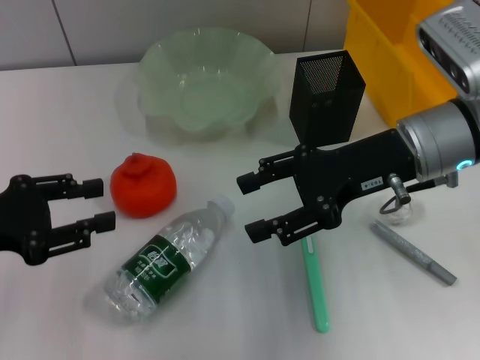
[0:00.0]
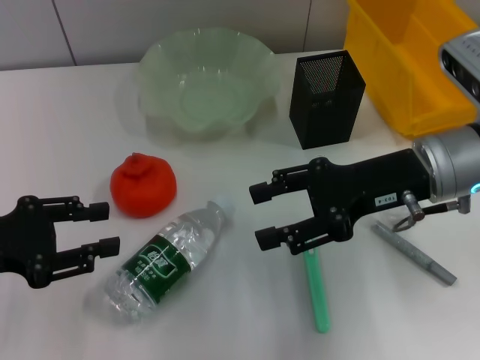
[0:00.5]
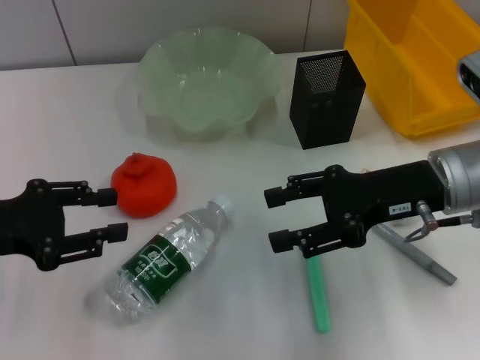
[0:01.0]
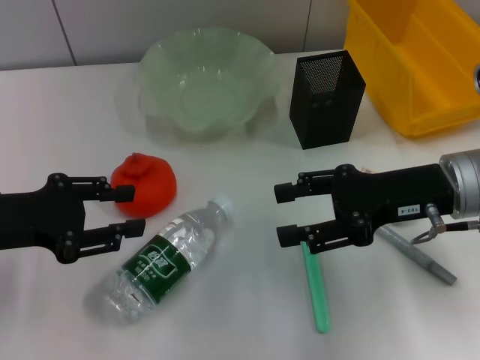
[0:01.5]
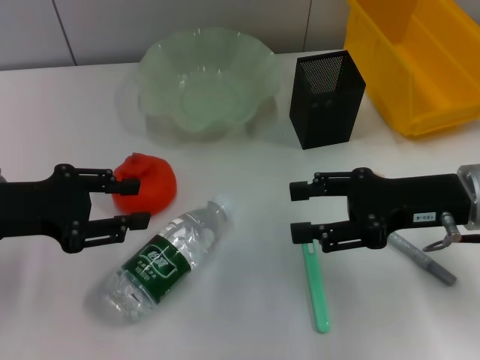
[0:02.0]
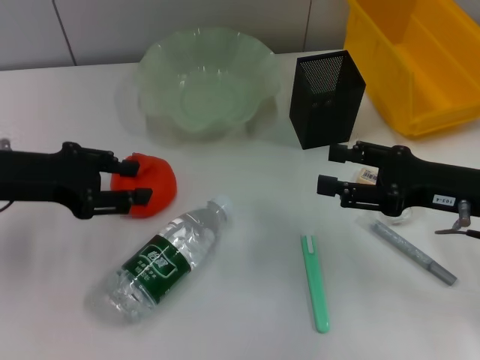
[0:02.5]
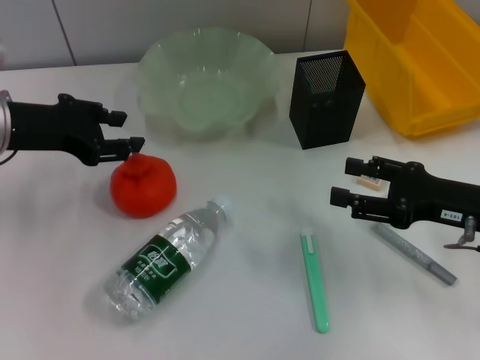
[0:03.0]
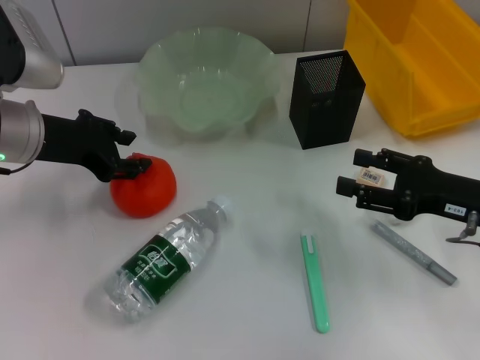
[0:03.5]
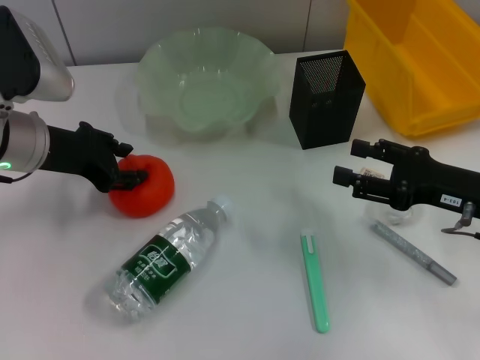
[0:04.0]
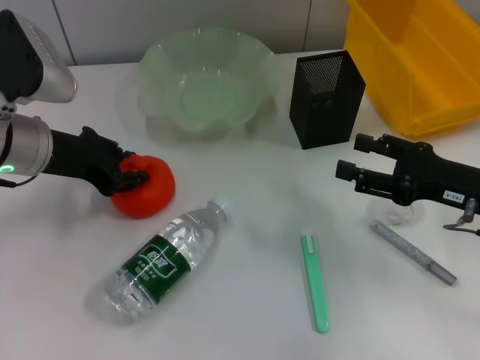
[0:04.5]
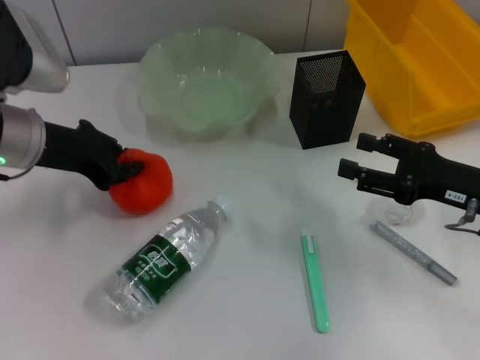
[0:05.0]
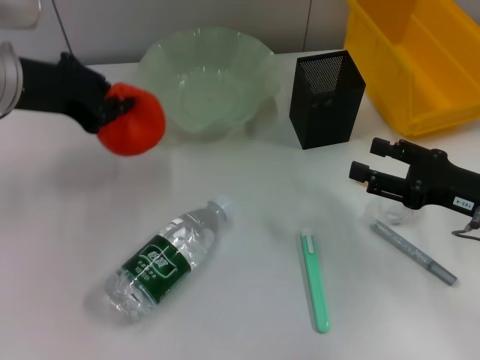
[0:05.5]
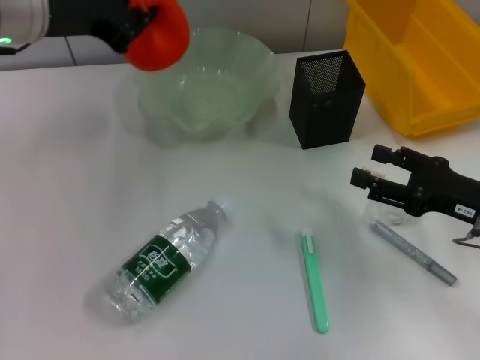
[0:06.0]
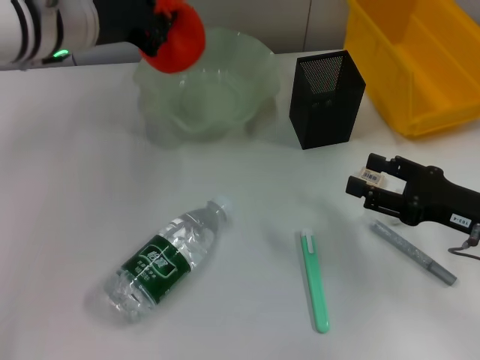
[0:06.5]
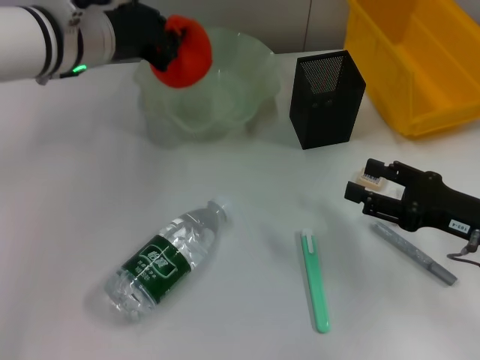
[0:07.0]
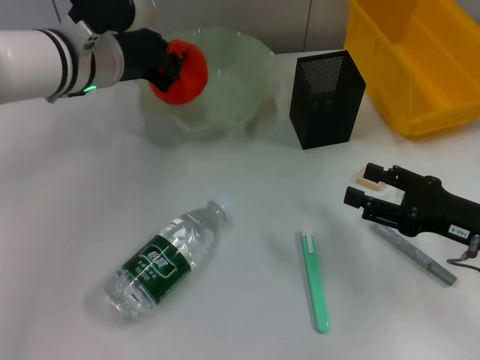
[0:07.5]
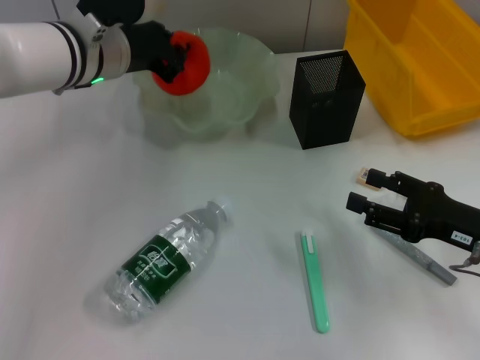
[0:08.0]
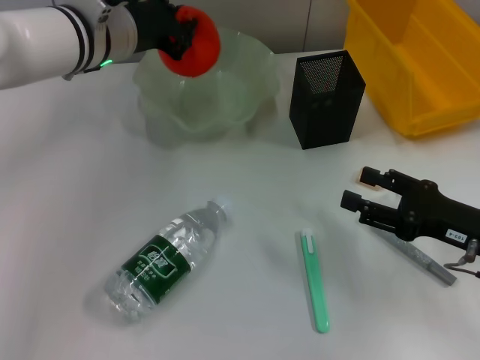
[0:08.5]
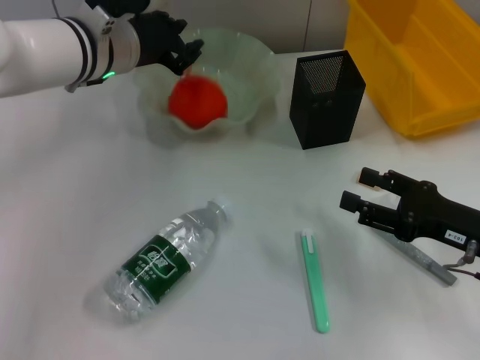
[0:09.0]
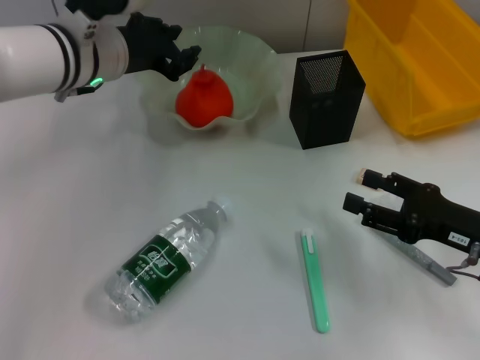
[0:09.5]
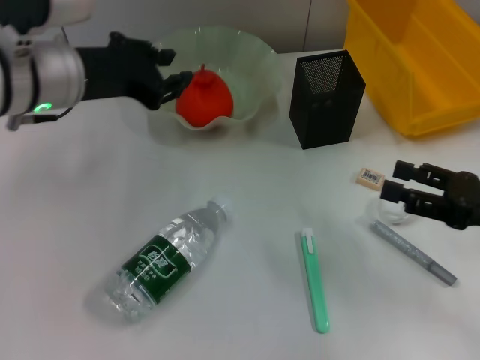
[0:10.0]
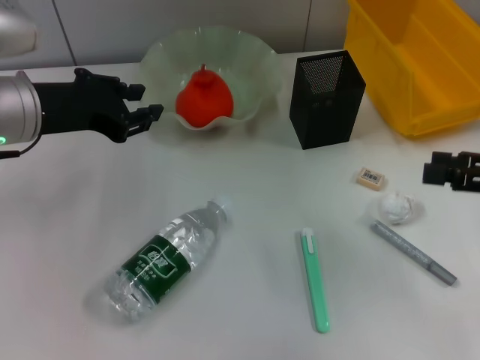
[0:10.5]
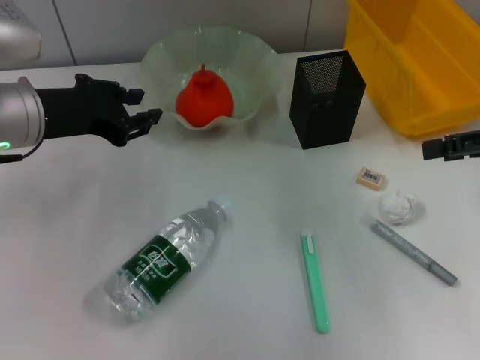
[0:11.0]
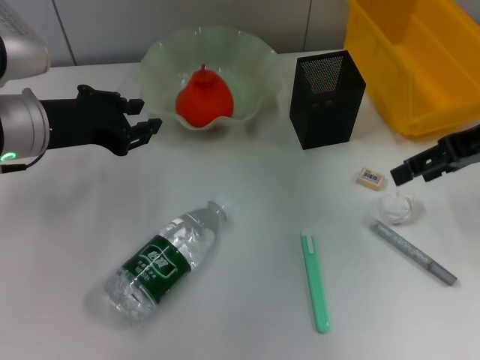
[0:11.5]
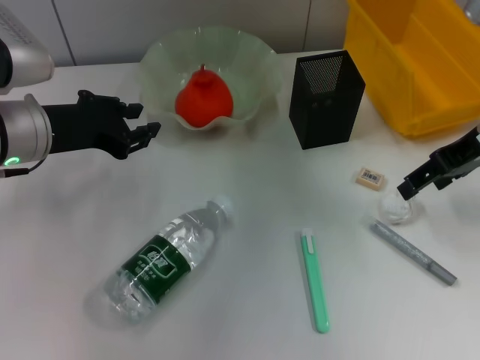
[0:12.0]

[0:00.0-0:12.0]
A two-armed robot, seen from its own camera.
Step, 0:00.0 to 0:04.5: Grab the orange with the left hand.
Step, 0:05.0 to 0:09.0: Place the orange into the fruit bowl with the left hand.
0:00.0 to 0:02.0: The right gripper shifts roughly 5 cm to the right.
0:02.0 to 0:04.0: The right gripper changes place by approximately 5 cm; the left gripper shifts roughly 10 cm forward and to the right.
0:04.0 to 0:06.0: The left gripper heads upward, covering roughly 10 cm, and closes.
0:06.0 to 0:08.0: The left gripper heads downward and to the right, covering some 10 cm.
0:08.0 to 0:10.0: The left gripper goes about 5 cm backward, and opens.
0:10.0 to 0:12.0: The left gripper ends up about 5 cm from where it was. The right gripper moves forward and upward, some 15 cm.

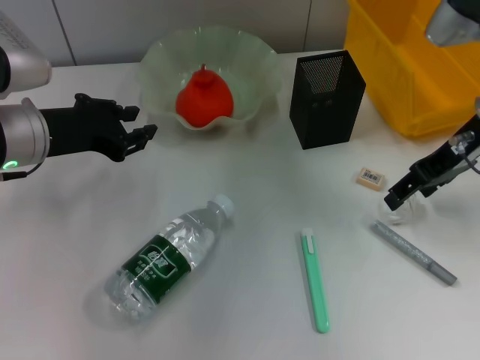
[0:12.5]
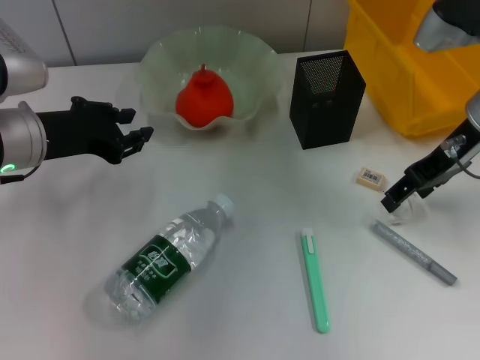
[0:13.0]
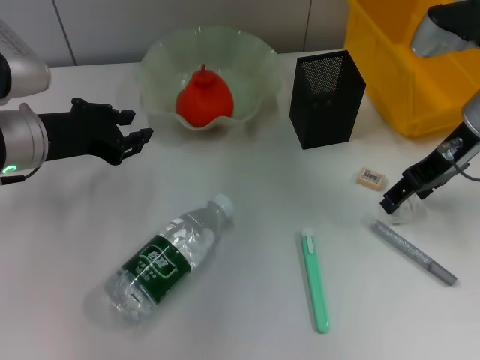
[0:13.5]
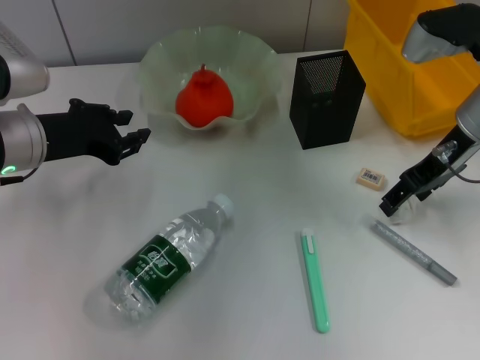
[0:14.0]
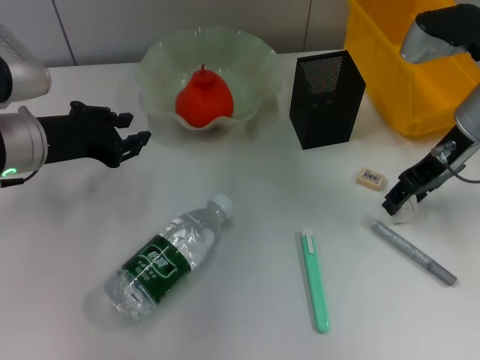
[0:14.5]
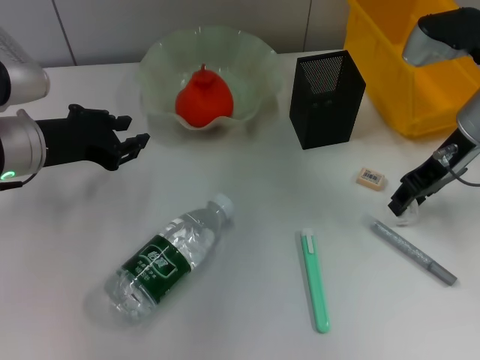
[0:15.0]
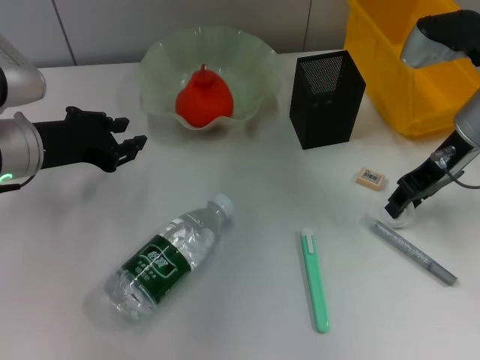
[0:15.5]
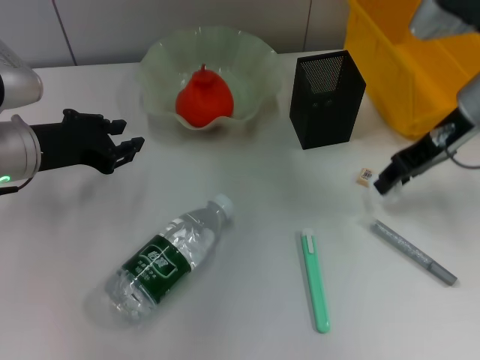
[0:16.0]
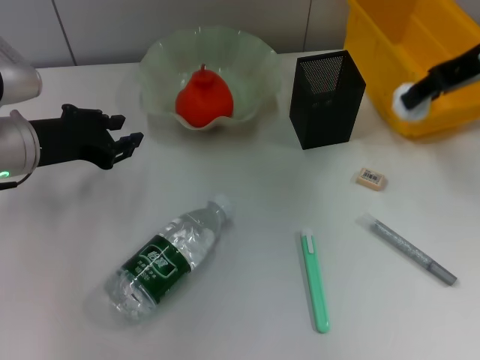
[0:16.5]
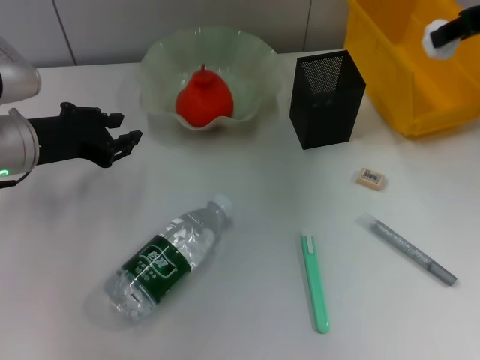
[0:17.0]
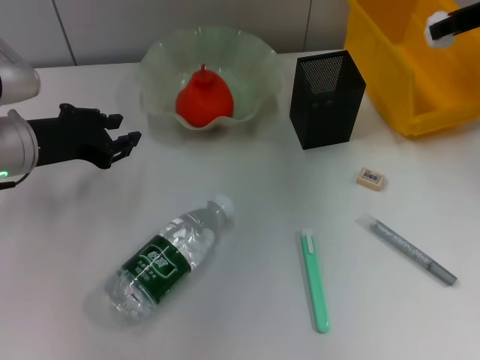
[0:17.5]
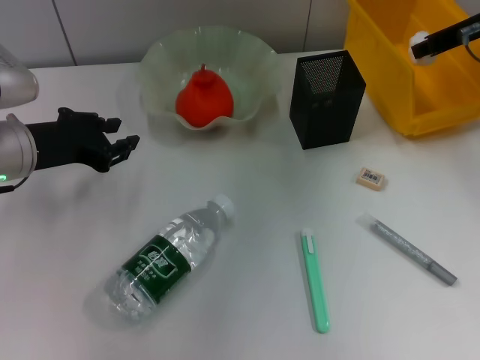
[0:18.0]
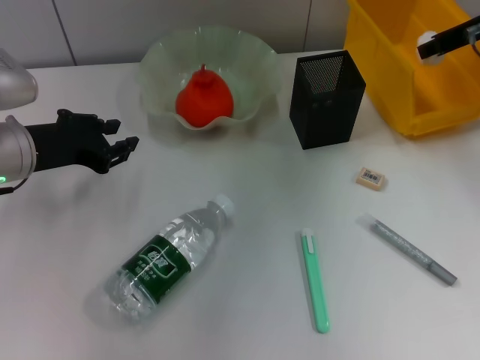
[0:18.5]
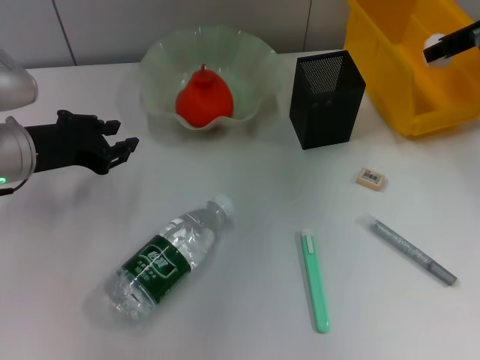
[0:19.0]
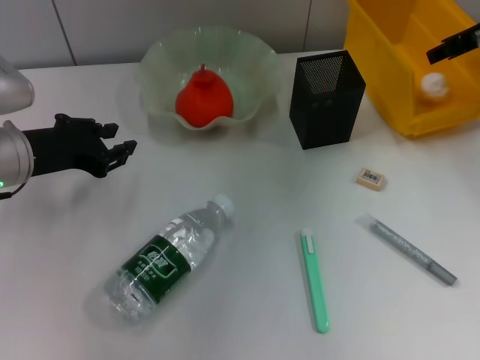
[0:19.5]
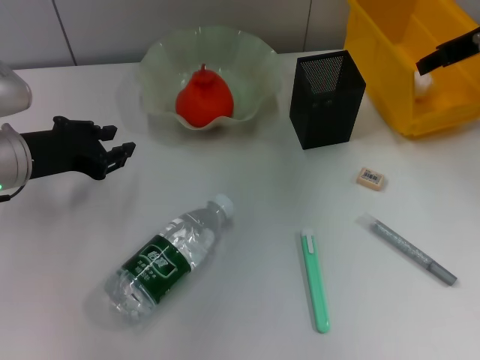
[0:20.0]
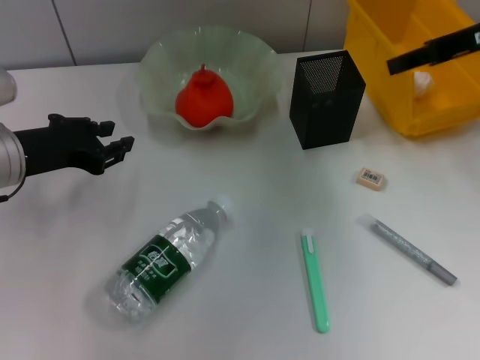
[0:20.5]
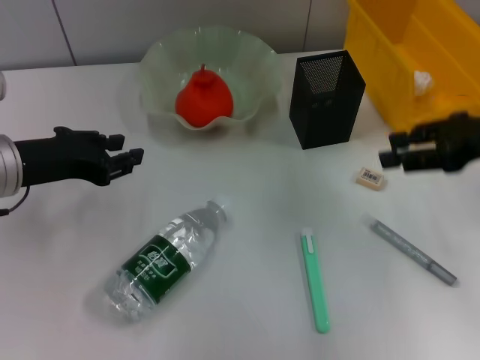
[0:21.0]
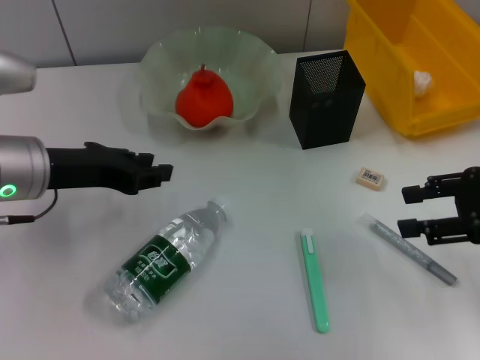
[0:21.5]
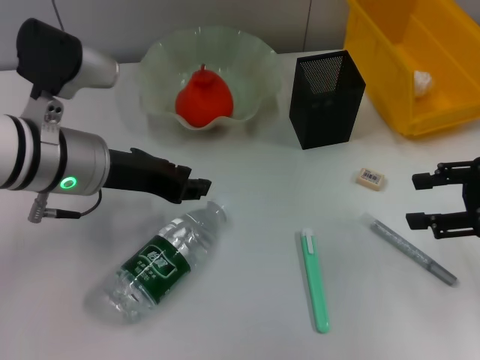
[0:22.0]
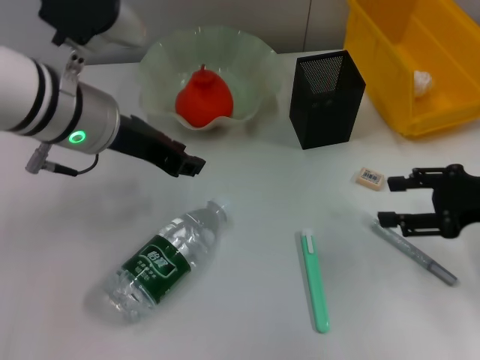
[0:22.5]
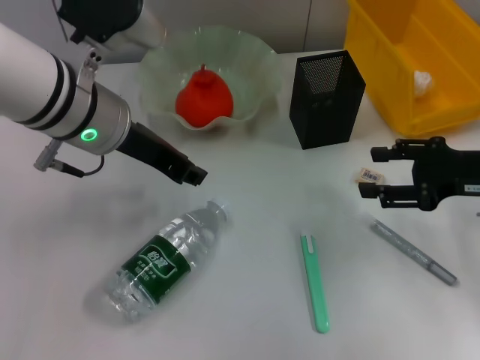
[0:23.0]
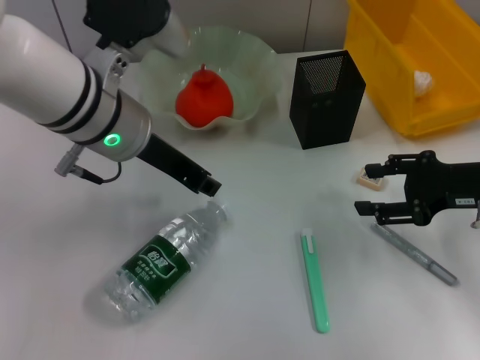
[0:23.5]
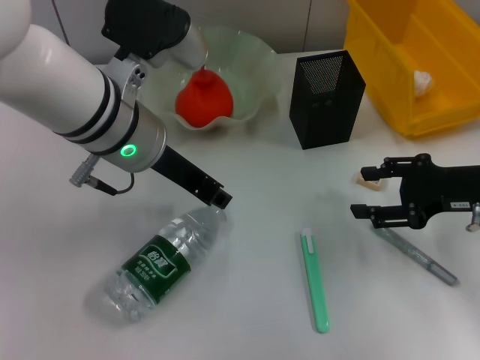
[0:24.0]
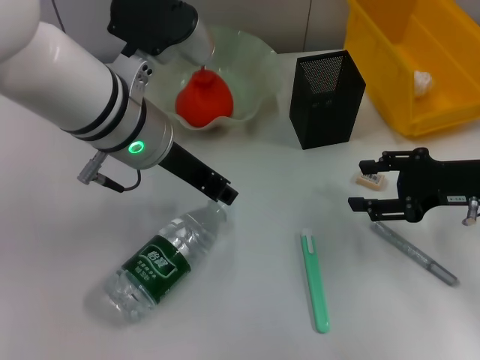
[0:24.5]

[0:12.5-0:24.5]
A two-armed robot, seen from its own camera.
Step, 0:12.5 to 0:15.0: Grab the paper ball with the right hand.
Step, 0:15.5 to 0:19.5: Place the paper ball into the trash can with the right hand.
0:12.5 to 0:14.5: The grippers move only a little.
0:14.5 to 0:16.5: The right gripper moves upward, some 10 cm, and closes up.
0:16.5 to 0:18.5: The right gripper is displaced forward by roughly 5 cm.
0:18.5 to 0:20.5: The right gripper travels backward by approximately 5 cm.
0:20.5 to 0:22.5: The right gripper is displaced downward and backward by roughly 15 cm, while the left gripper moves to the right and upward, approximately 10 cm.
0:22.5 to 0:24.5: The grippers stay close to where they were, moving slightly.

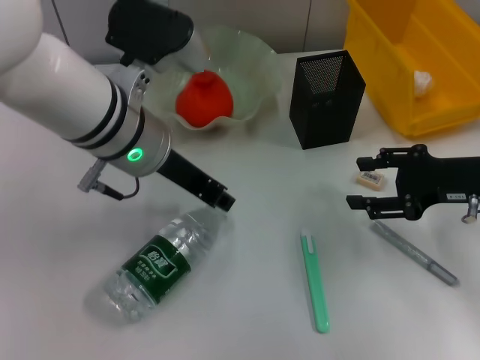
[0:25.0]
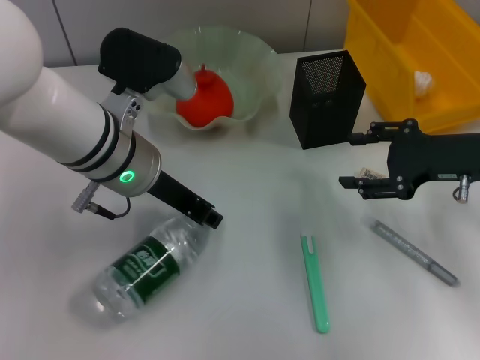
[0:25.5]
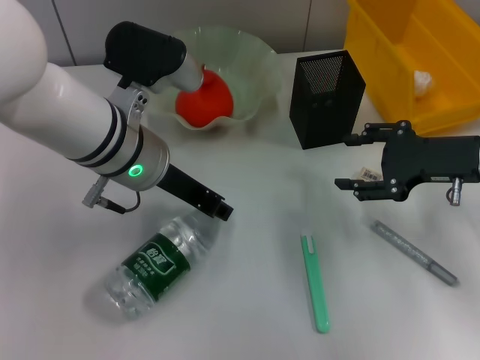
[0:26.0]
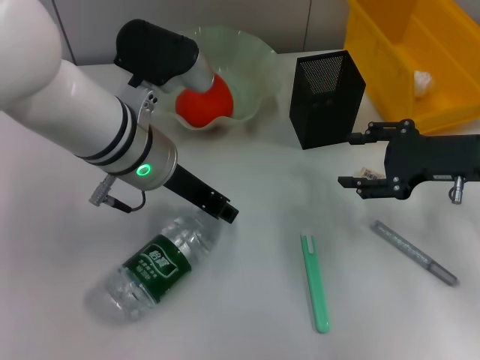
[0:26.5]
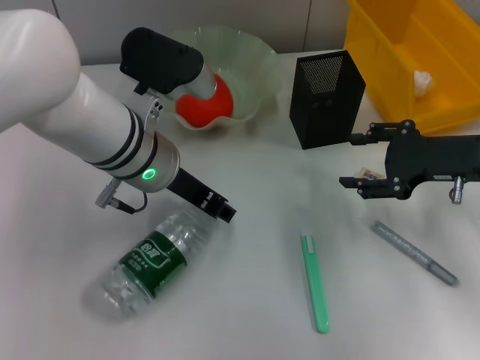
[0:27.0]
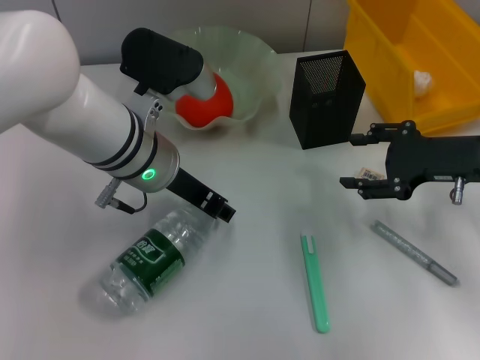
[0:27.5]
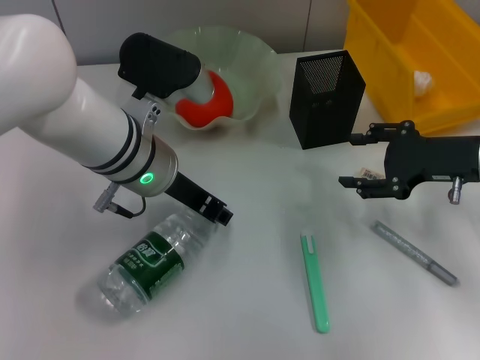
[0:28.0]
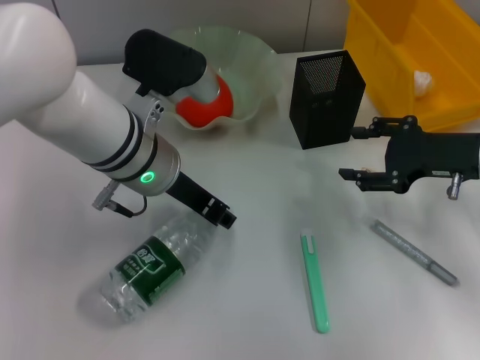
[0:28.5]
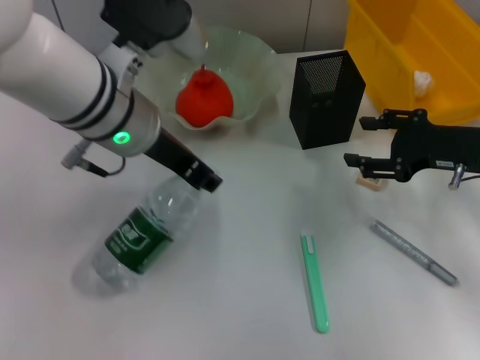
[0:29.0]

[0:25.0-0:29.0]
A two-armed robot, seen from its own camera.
Step, 0:25.0 to 0:28.0: Grab the water bottle with the left hand.
0:25.0 to 0:27.0: The grippers stay close to where they were, moving slightly.
0:27.0 to 0:29.0: The left gripper is displaced upward by approximately 5 cm.
